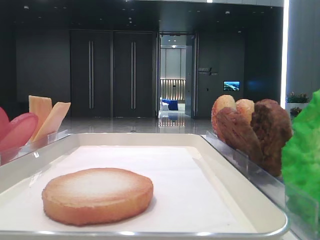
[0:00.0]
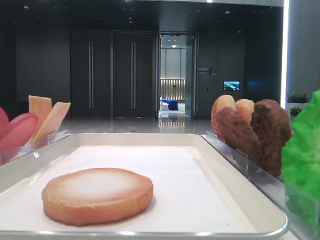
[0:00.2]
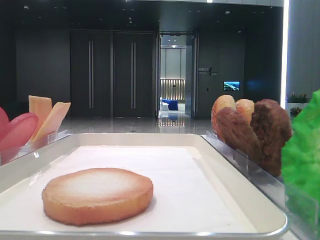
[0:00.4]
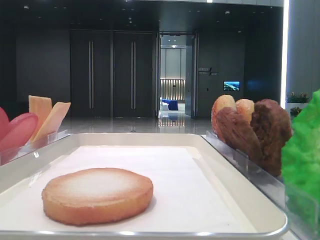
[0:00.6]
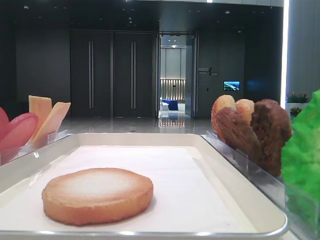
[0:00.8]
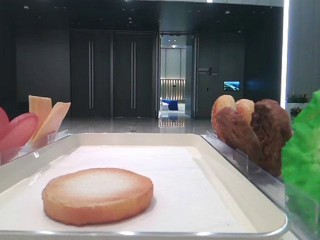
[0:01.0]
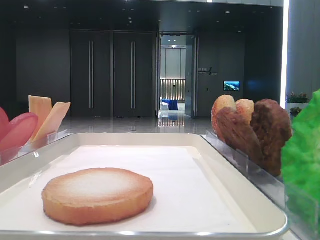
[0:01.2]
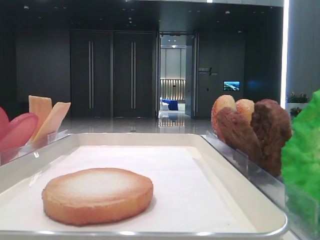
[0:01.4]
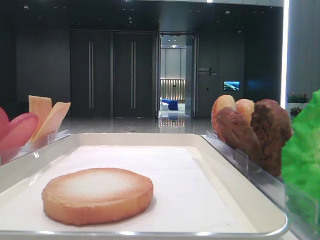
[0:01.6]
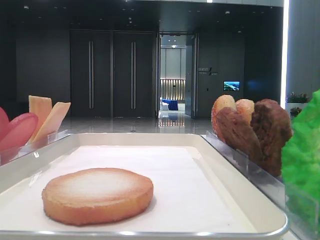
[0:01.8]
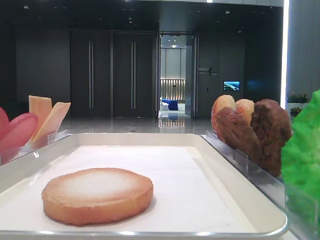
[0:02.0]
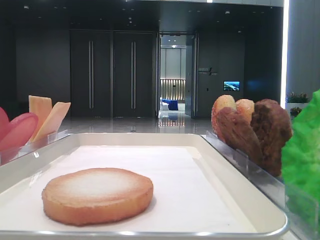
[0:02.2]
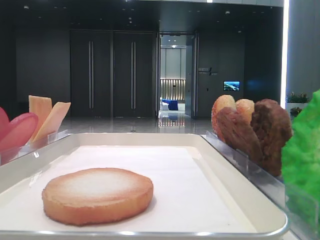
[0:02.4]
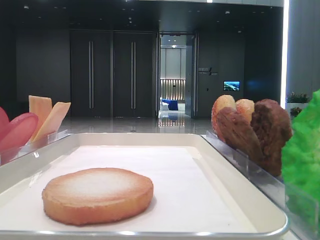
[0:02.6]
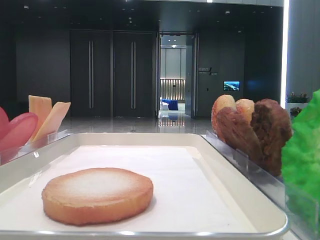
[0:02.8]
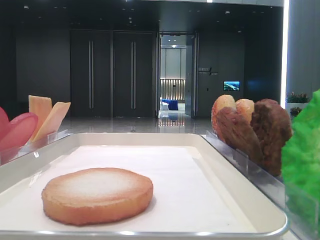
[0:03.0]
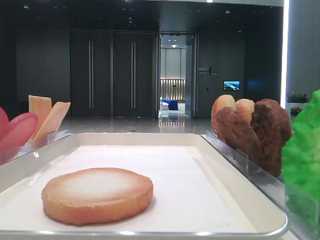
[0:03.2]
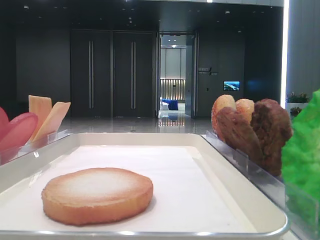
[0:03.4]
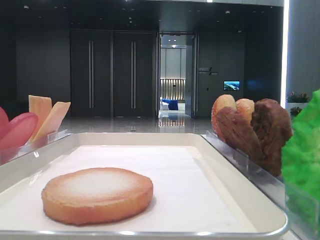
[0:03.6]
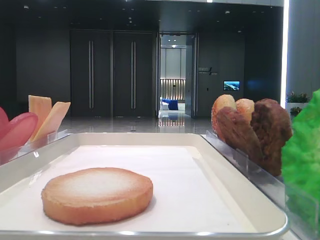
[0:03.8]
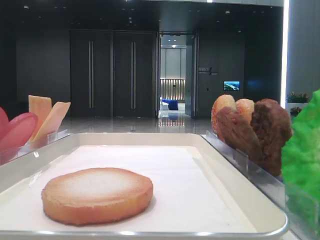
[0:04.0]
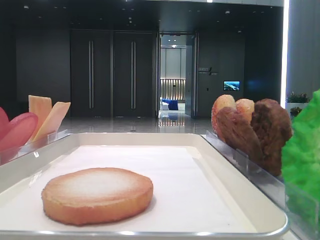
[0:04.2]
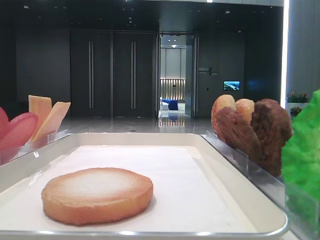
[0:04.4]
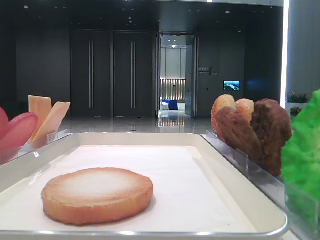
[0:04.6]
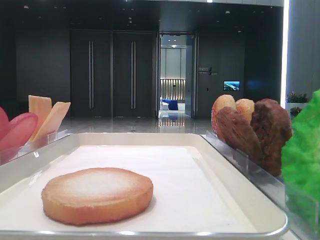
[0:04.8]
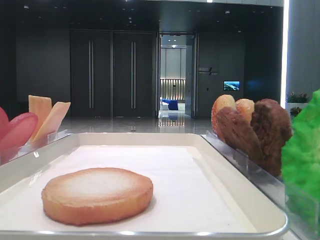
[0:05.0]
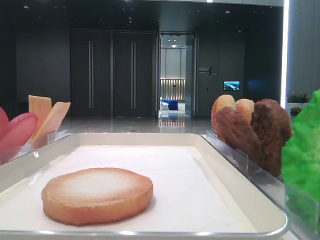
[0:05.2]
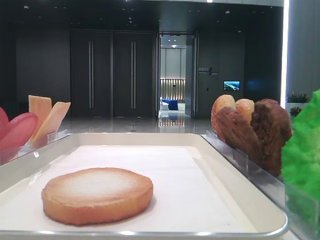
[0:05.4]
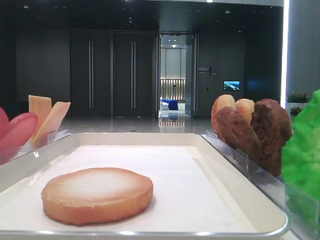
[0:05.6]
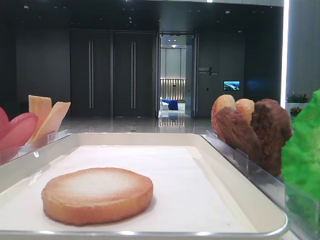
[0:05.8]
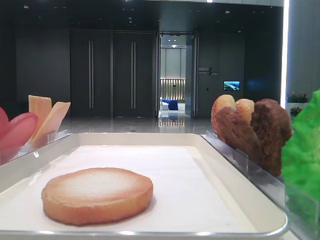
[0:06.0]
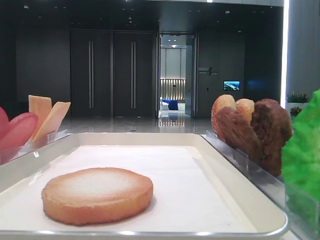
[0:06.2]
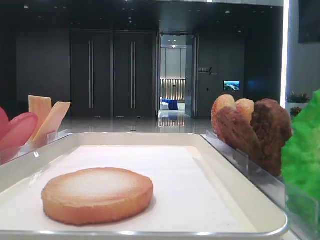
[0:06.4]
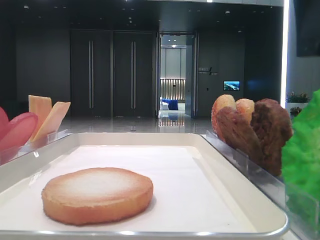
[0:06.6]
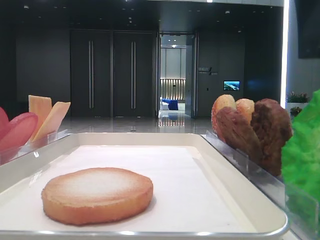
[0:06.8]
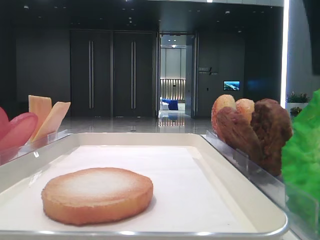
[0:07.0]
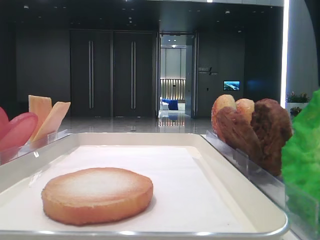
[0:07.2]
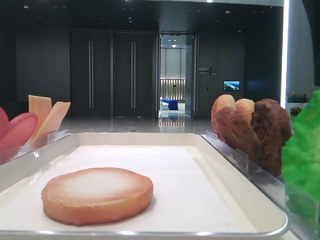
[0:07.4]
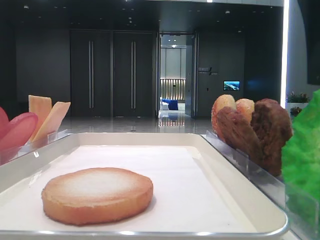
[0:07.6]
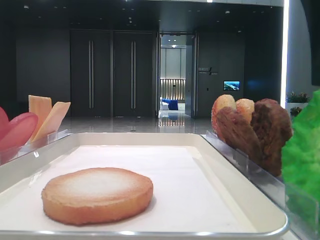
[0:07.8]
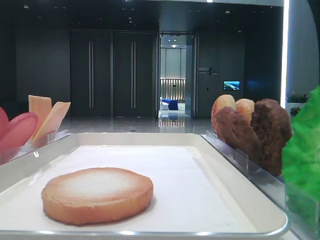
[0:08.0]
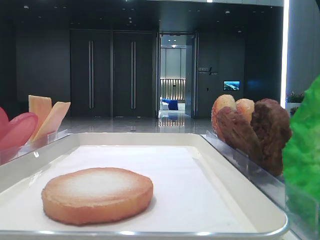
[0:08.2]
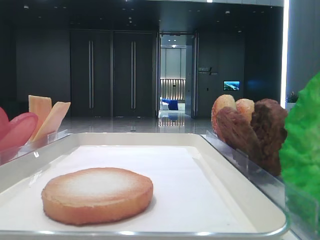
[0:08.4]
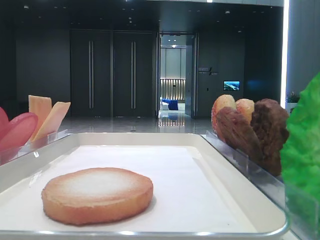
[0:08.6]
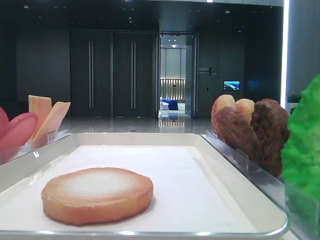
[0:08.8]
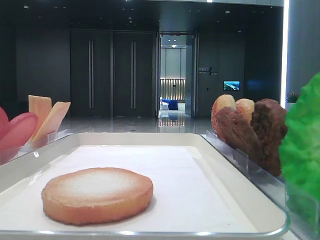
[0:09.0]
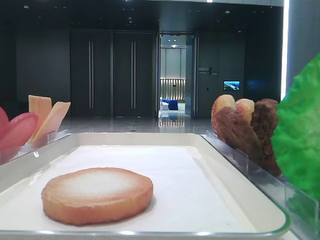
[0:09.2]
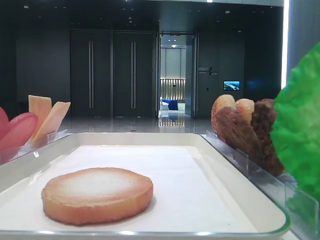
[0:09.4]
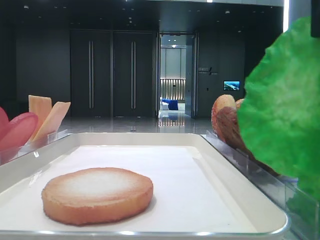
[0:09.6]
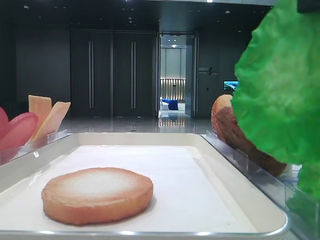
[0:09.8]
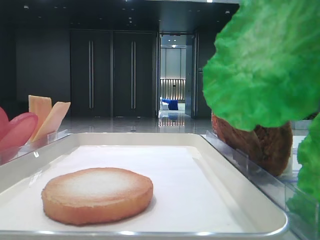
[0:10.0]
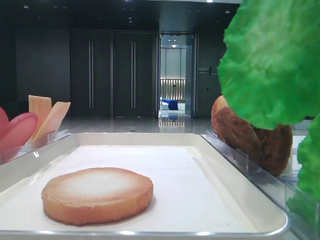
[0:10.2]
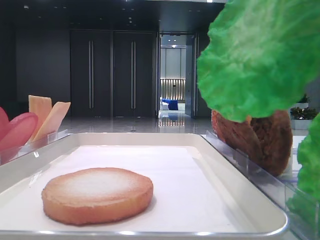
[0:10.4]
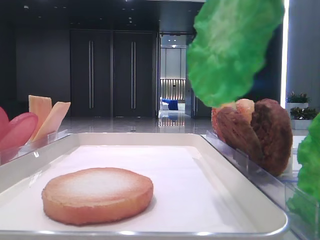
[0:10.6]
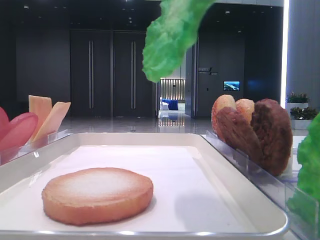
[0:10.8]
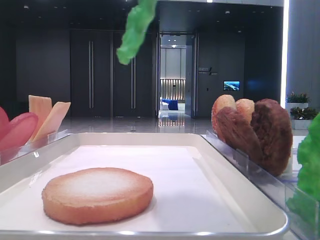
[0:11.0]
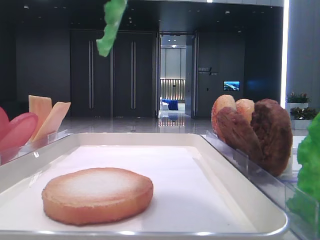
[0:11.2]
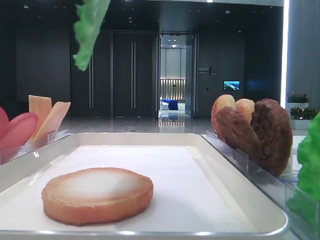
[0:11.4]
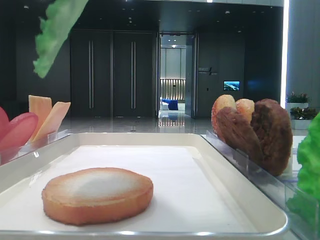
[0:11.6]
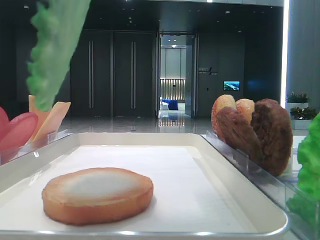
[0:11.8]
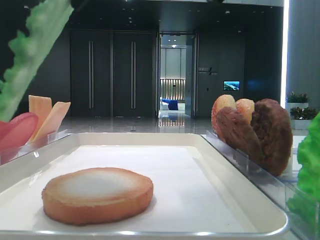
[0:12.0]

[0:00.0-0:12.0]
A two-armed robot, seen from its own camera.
Step, 0:00.0 to 0:08.6: Grab the lettuce leaf with the right hand.
0:06.0 to 0:07.6: The right gripper heads downward, covering some 5 cm.
0:07.6 to 0:09.0: The right gripper closes up.
0:09.0 to 0:10.4: The right gripper is displaced upward by approximately 5 cm.
0:10.4 to 0:12.0: The right gripper travels to the left by some 10 cm.

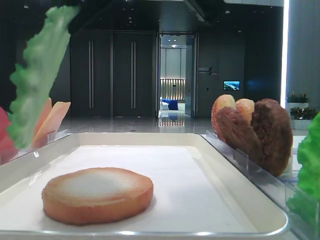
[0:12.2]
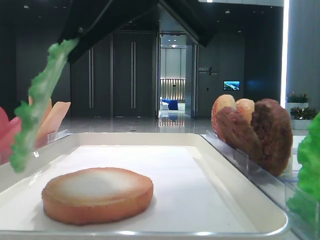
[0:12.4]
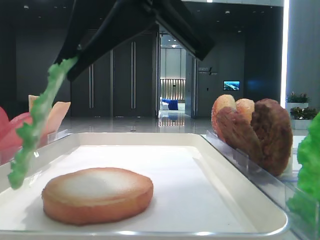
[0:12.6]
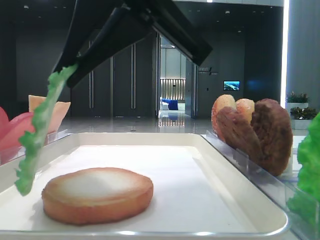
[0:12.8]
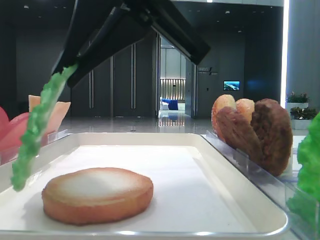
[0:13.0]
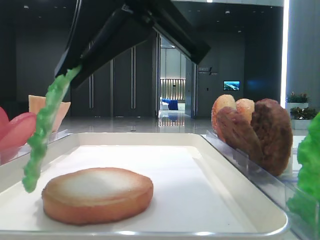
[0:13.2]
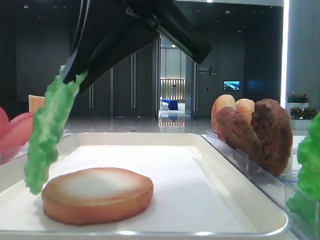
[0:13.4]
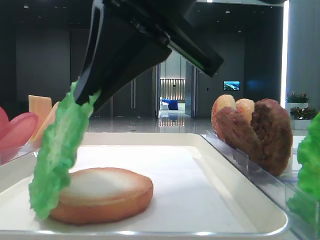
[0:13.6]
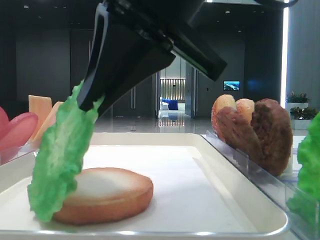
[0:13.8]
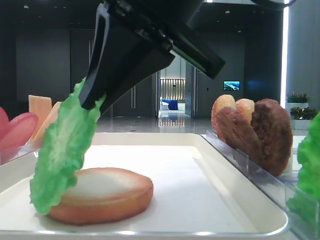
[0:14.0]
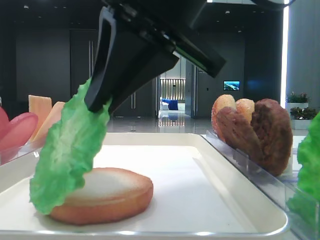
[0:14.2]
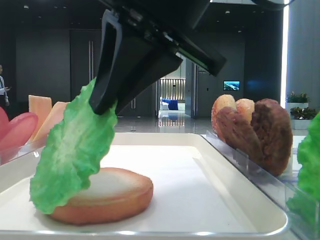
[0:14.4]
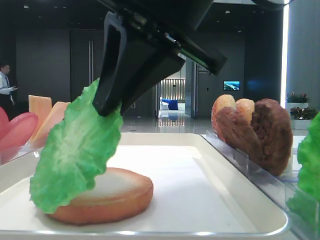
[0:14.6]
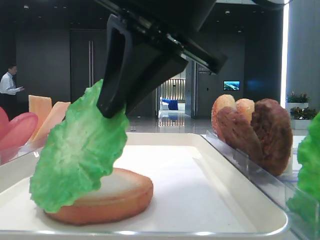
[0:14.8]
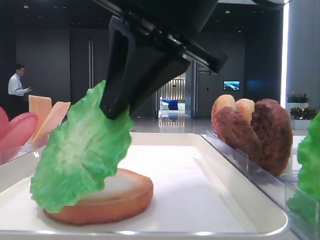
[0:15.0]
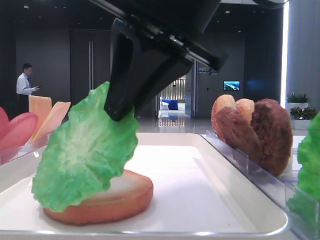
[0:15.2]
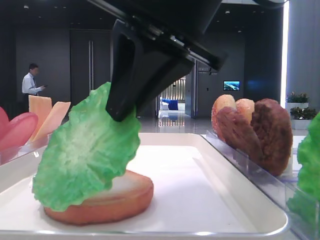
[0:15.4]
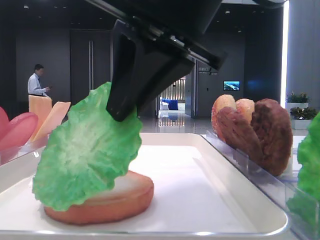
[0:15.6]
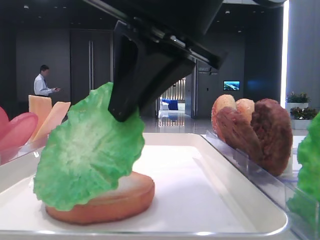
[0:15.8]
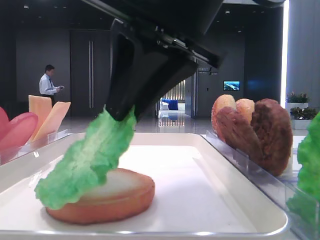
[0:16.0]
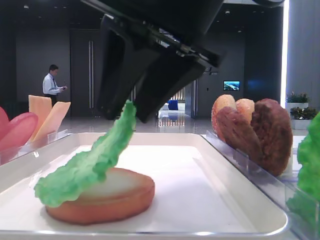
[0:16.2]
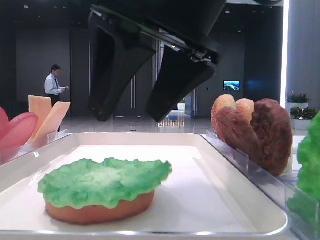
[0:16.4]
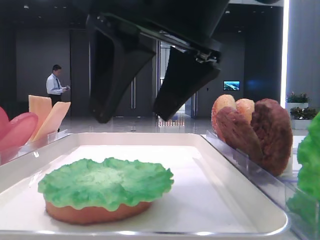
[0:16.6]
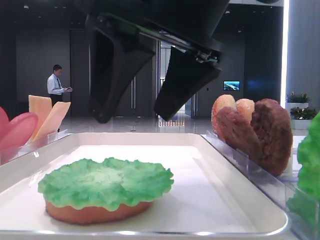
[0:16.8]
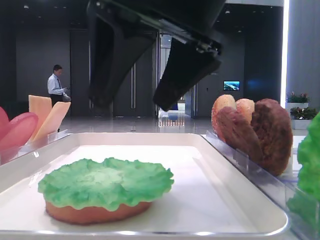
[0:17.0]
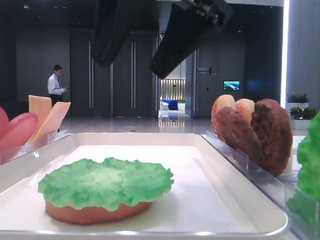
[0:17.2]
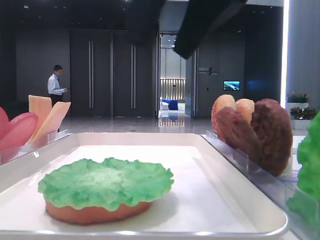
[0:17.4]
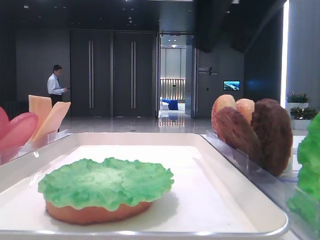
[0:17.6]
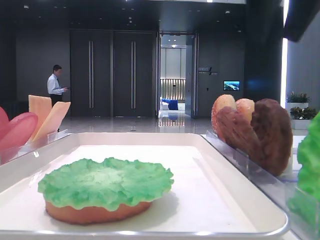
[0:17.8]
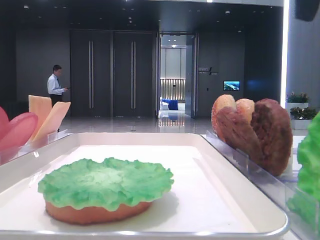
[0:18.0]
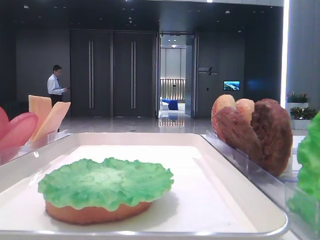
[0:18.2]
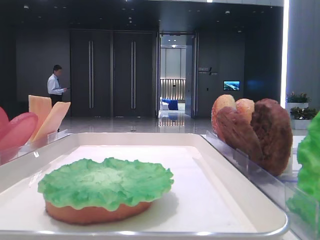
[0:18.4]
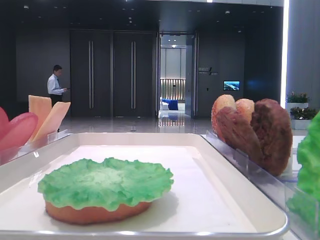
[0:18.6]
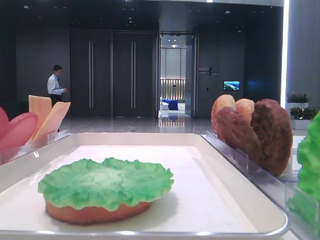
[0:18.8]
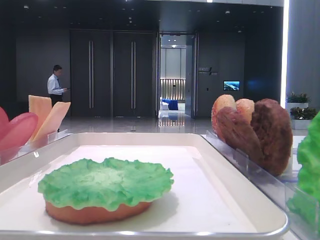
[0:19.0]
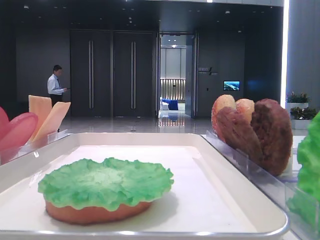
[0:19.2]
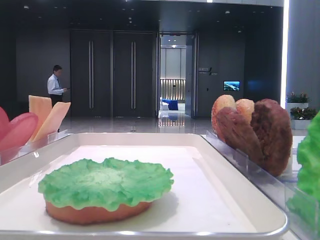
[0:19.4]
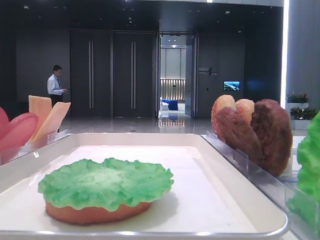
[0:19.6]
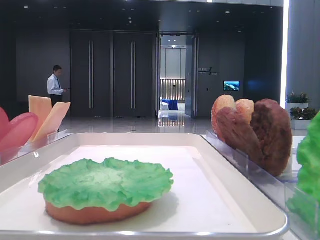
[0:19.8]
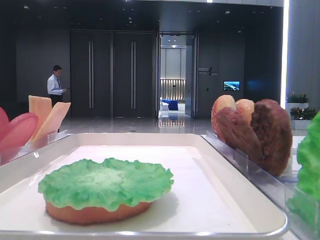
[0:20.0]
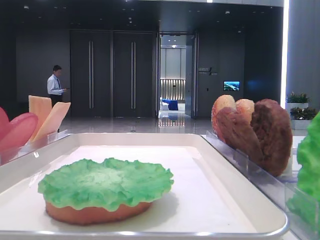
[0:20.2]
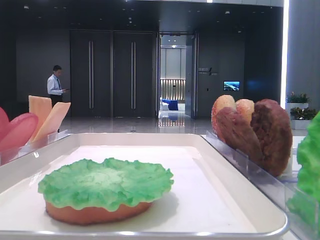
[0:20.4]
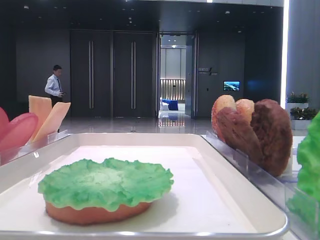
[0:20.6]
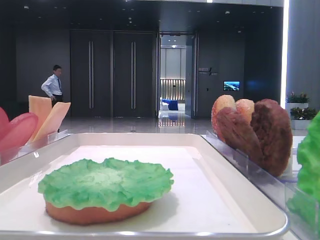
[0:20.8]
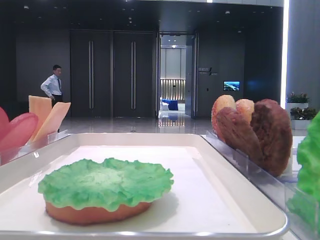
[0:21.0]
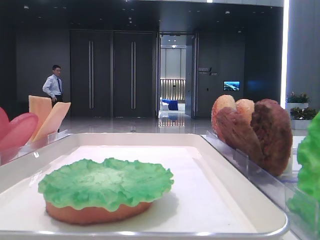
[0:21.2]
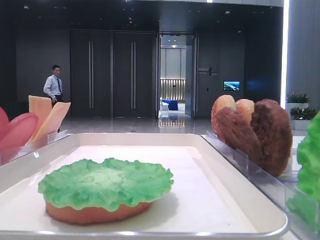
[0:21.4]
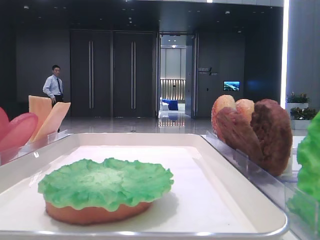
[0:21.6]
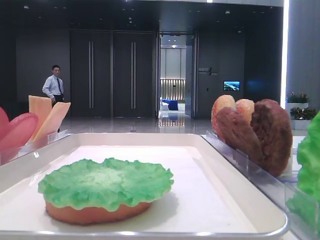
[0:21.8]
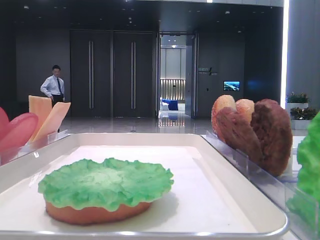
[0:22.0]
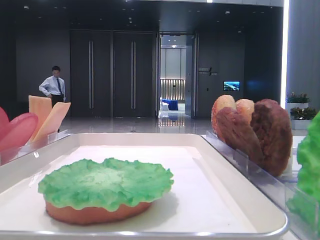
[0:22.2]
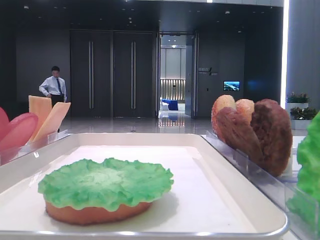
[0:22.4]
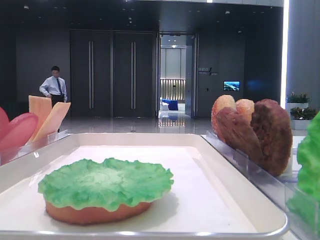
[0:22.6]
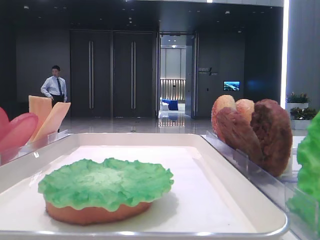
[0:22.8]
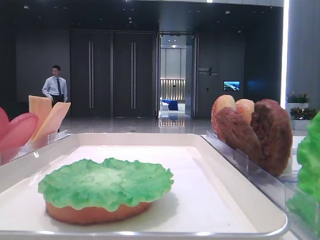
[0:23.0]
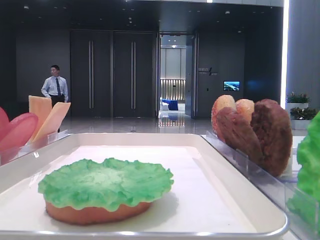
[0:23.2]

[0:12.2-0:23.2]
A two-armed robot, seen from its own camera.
Step, 0:12.2 to 0:16.4: Place the lettuce leaf on the bottom bread with the right hand.
0:12.2 to 0:13.8: The grippers move only a little.
0:13.8 to 0:15.4: The grippers make only small movements.
0:15.4 to 0:17.0: The right gripper opens.
0:17.0 to 0:18.4: The right gripper goes about 30 cm to the right and upward.
0:21.6 to 0:23.2: The two grippers keep their place.
